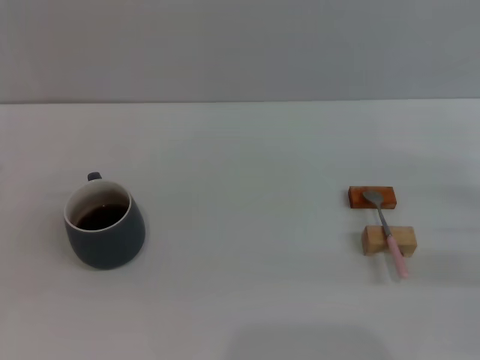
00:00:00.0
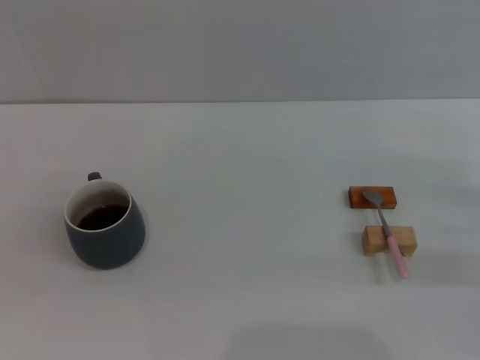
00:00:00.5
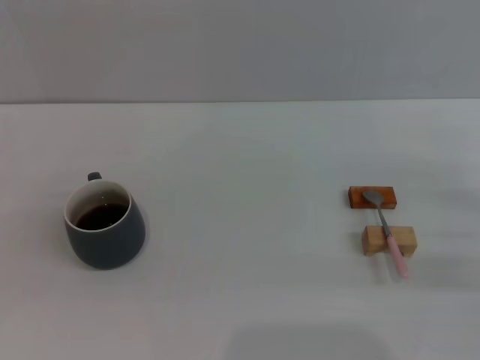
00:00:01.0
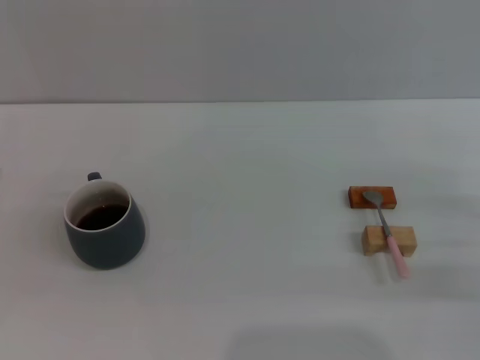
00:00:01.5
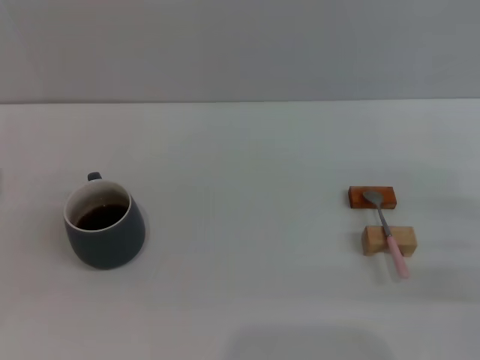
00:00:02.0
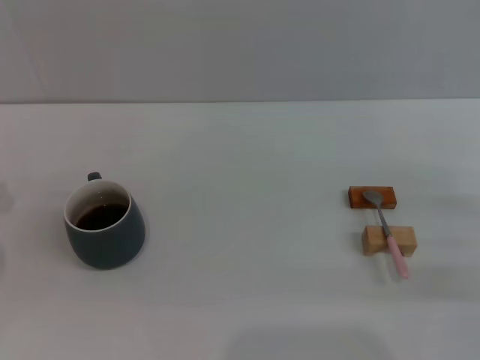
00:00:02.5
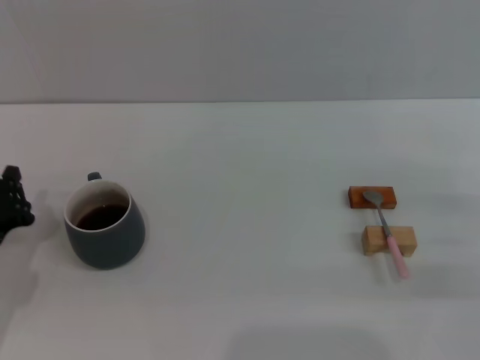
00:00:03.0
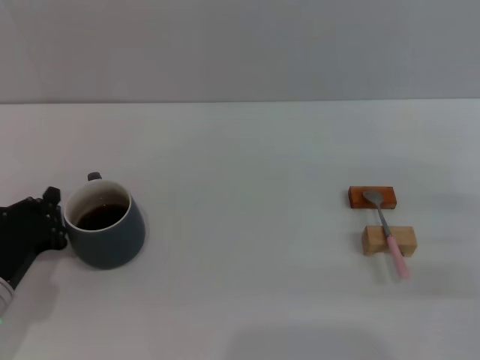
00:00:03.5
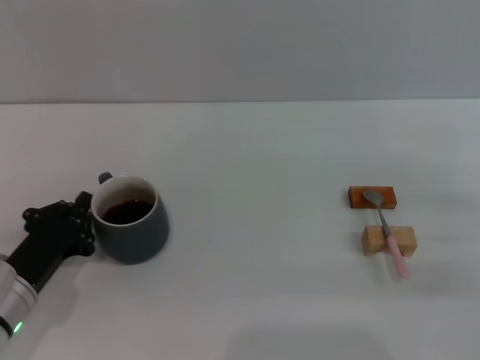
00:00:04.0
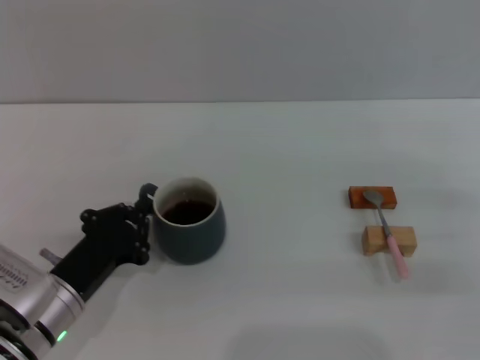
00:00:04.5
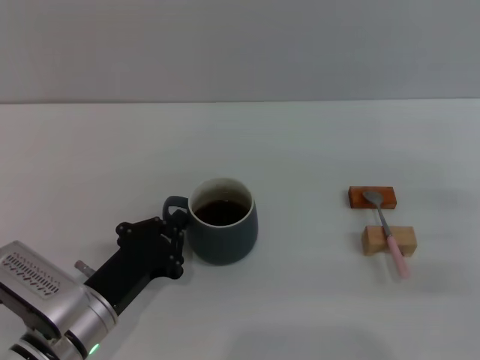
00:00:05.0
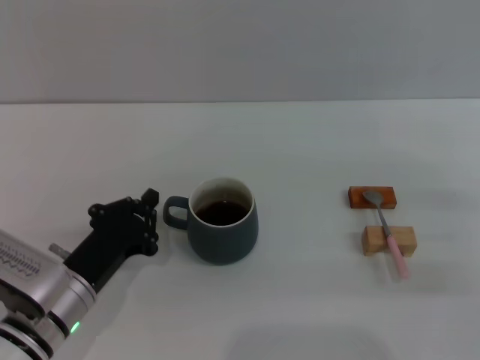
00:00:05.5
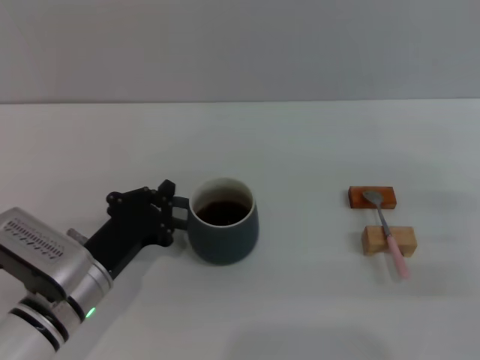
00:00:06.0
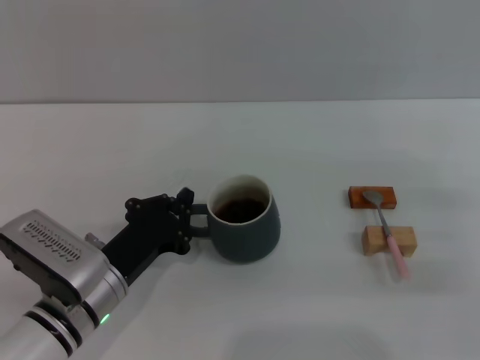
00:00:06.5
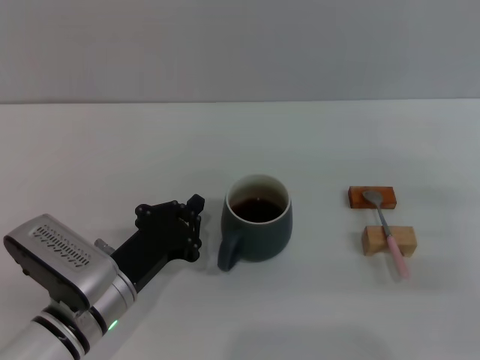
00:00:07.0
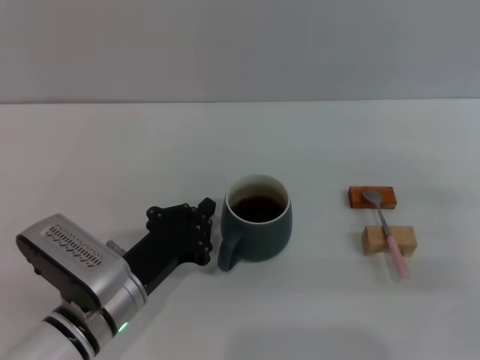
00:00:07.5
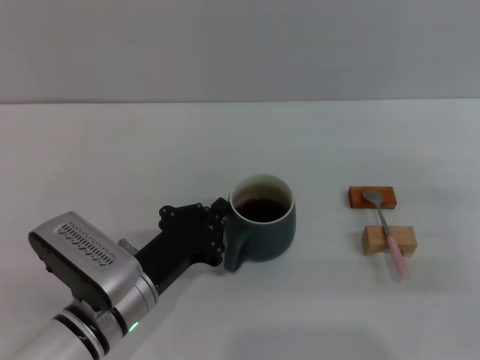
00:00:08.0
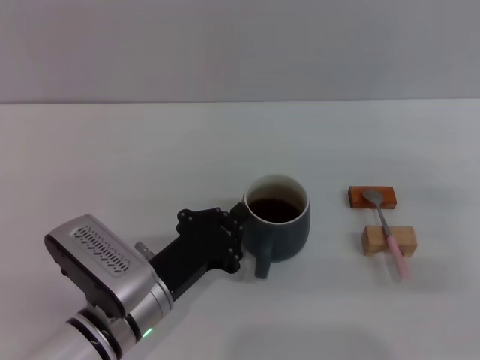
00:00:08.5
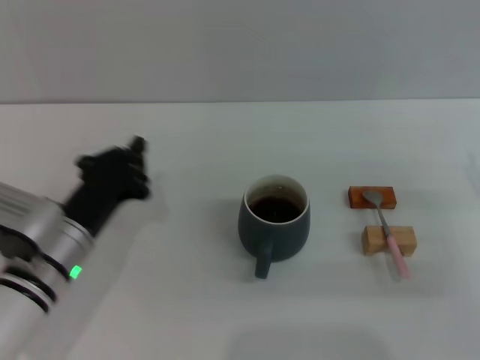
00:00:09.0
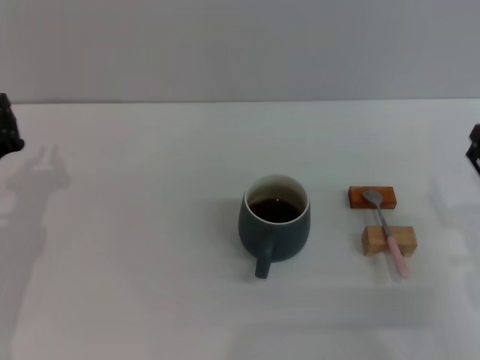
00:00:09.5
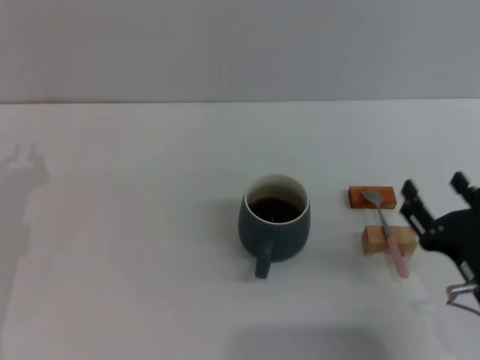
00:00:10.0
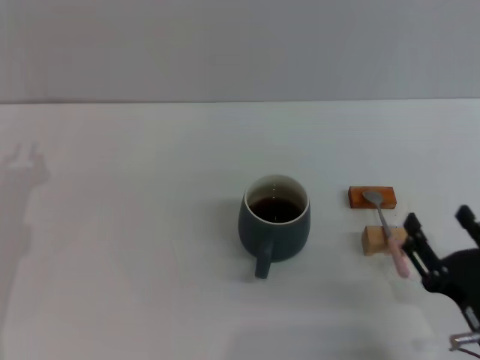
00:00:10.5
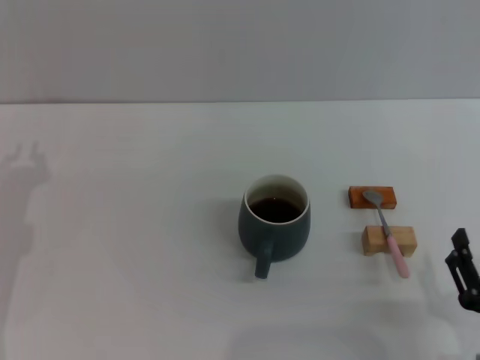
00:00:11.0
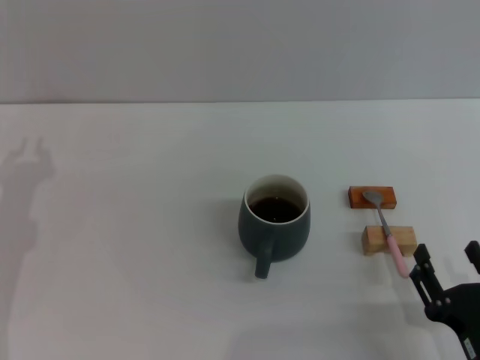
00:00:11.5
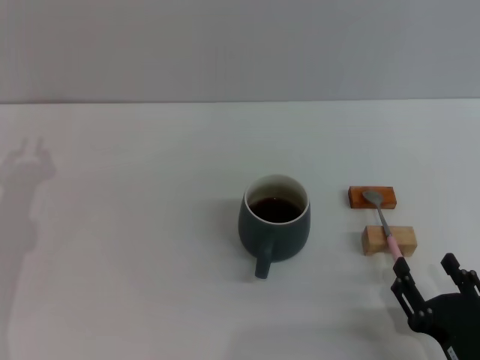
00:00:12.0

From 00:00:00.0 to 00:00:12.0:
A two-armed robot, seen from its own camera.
Task of the whole recording: Move the grey cup to the center, lift the pink spoon, stir it three times in the cup, and put the spoon into the cup.
Step, from 00:00:00.0 to 00:00:08.5: Move the cup with coffee to the center of view with the left gripper.
From 00:00:02.0 to 00:00:04.0: The left gripper travels to the right by approximately 10 cm, and closes its fingers.
From 00:00:04.0 to 00:00:06.0: The left gripper moves to the right, about 5 cm.
From 00:00:06.0 to 00:00:08.0: The grippers move only a little.
From 00:00:08.0 to 00:00:10.0: The left gripper is displaced to the left by approximately 15 cm. Meanwhile the right gripper heads to the left and backward, covering about 15 cm.
From 00:00:10.0 to 00:00:12.0: The right gripper is displaced backward and downward by approximately 10 cm.

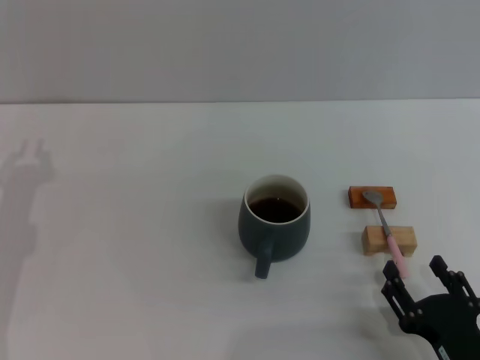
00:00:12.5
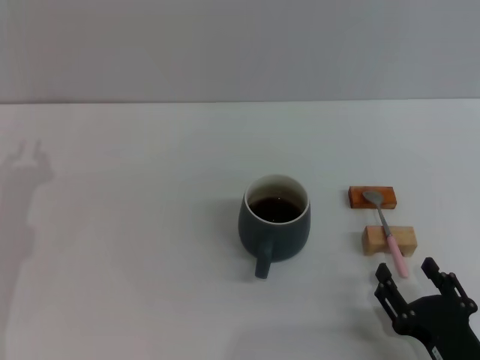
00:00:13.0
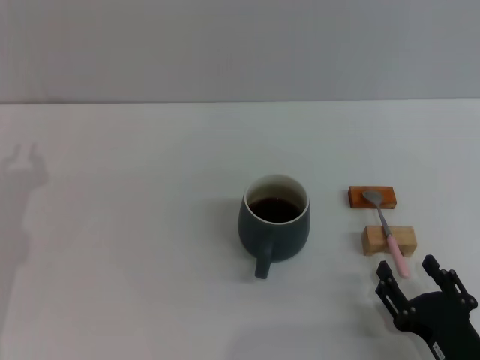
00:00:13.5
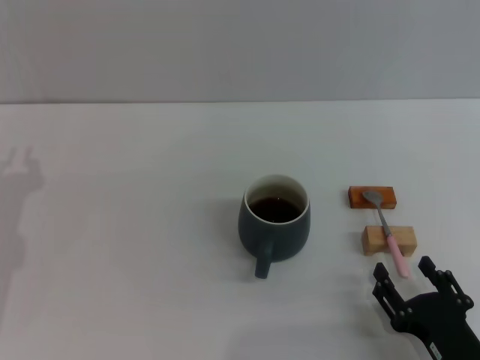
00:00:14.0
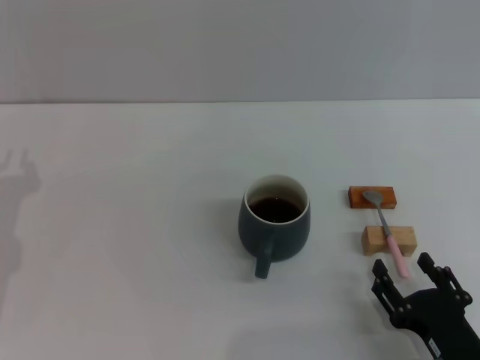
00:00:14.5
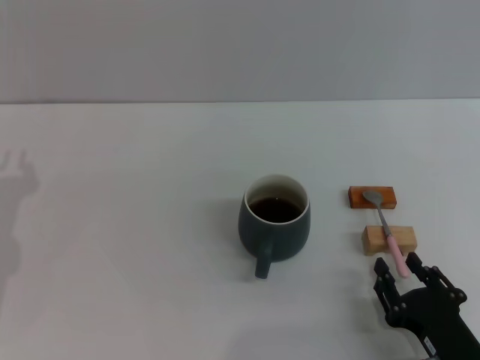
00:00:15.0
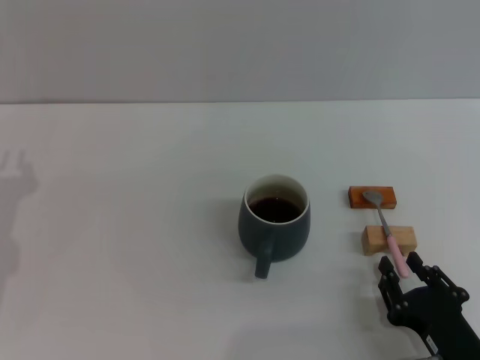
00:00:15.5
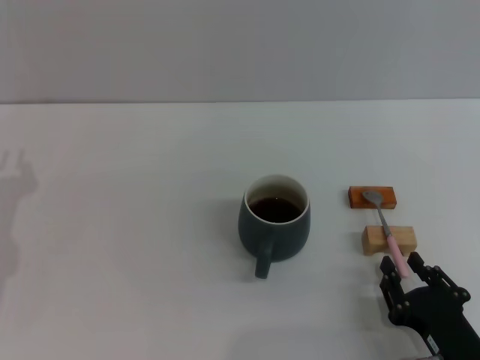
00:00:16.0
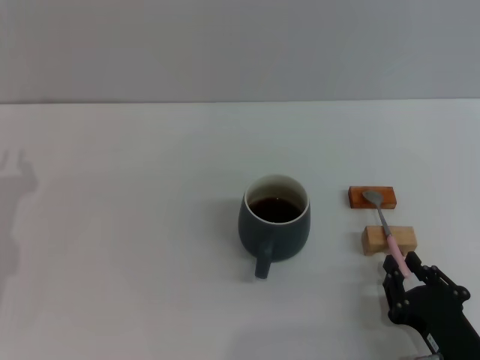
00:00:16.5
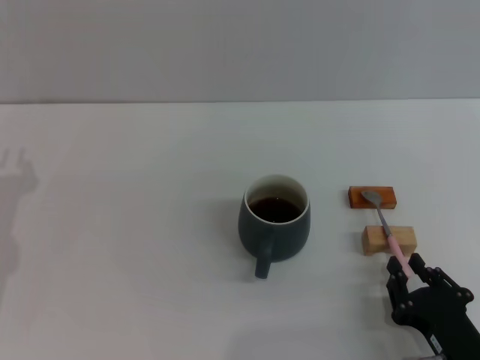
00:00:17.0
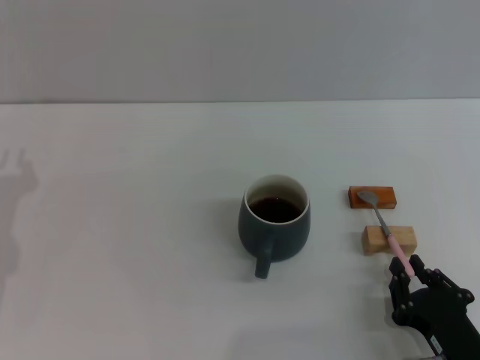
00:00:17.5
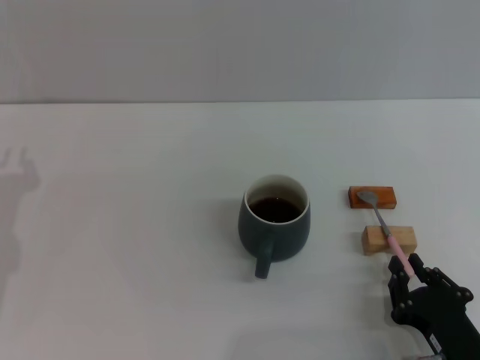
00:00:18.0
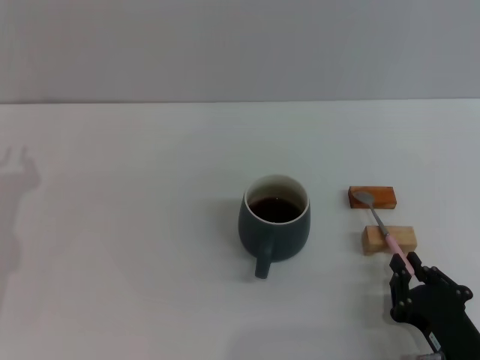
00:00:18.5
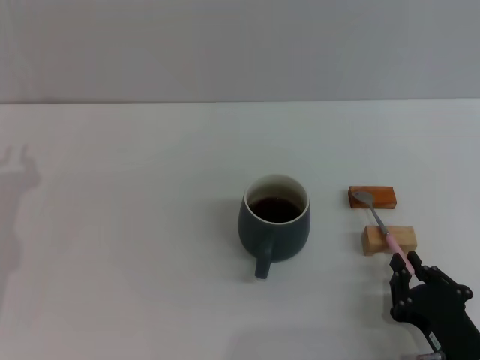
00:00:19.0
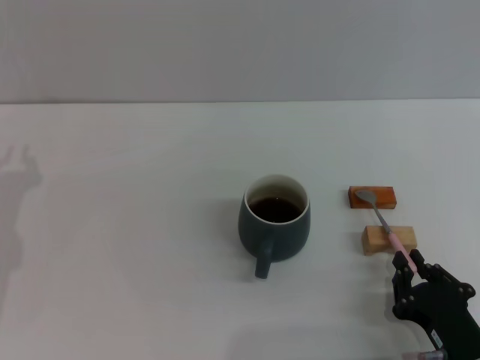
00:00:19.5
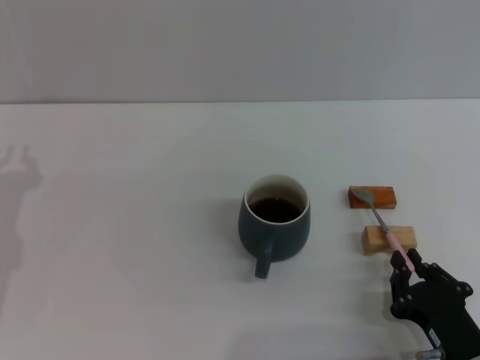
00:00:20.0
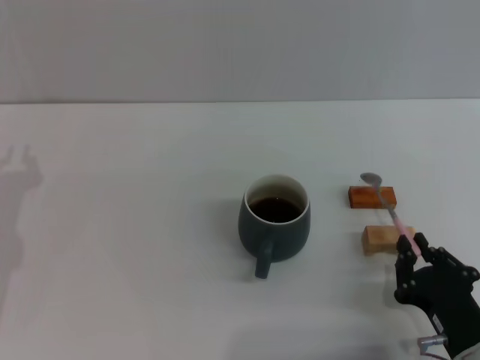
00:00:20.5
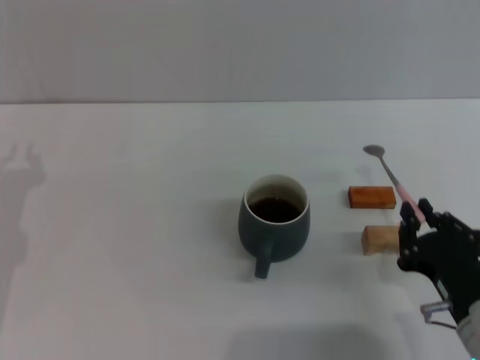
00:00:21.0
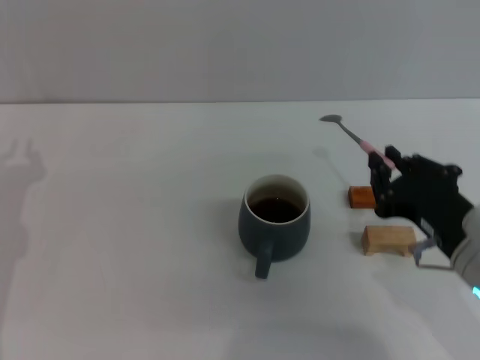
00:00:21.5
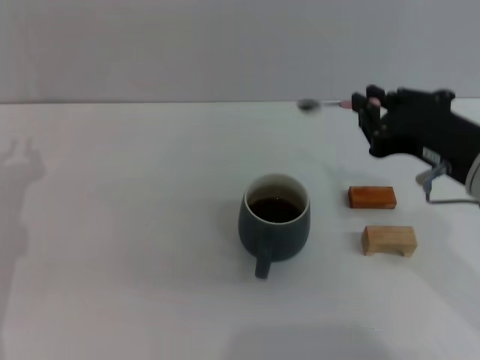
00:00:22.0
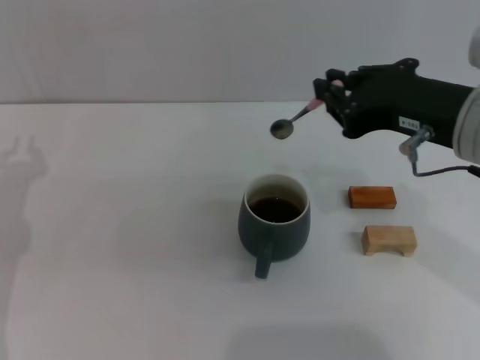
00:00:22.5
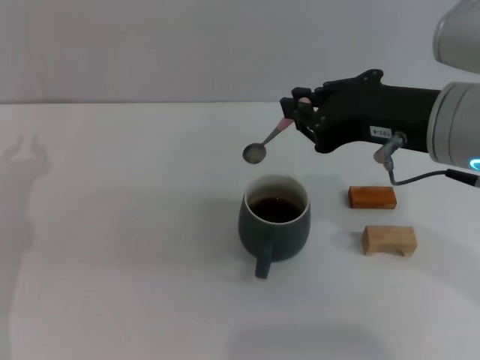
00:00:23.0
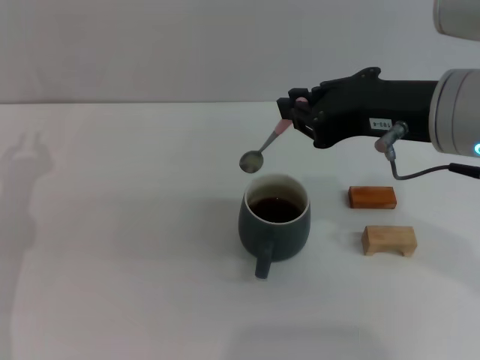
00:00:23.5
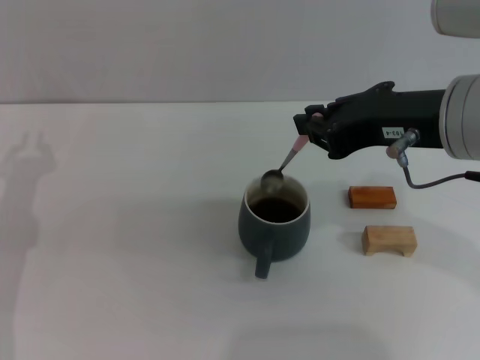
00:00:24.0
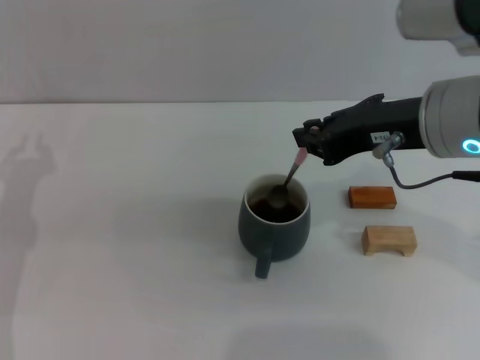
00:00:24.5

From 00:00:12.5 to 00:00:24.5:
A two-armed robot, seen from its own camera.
Task of the whole recording: Move the grey cup to the center, lift the pink spoon, stir it three times in the cup, and put the spoon into the cup.
Step, from 00:00:12.5 to 00:00:21.0: Pick up the spoon with the right gripper.
From 00:00:12.5 to 00:00:14.5: The grippers make only small movements.
From 00:00:14.5 to 00:00:16.5: The right gripper closes up.
From 00:00:16.5 to 00:00:18.5: The two grippers keep their place.
From 00:00:18.5 to 00:00:20.5: The grippers move only a little.
From 00:00:20.5 to 00:00:22.5: The right gripper is displaced upward and forward by approximately 25 cm.

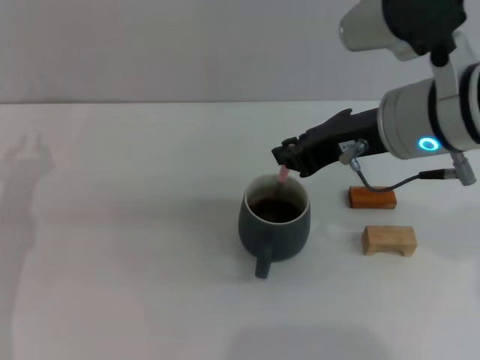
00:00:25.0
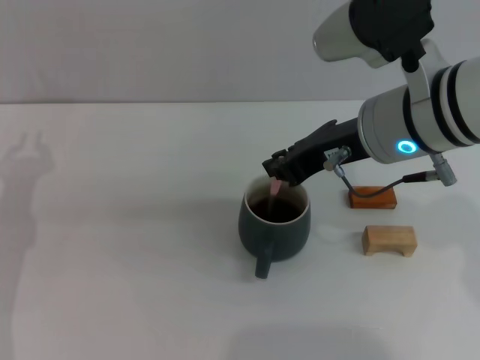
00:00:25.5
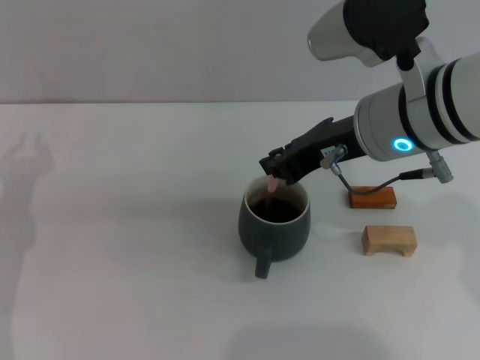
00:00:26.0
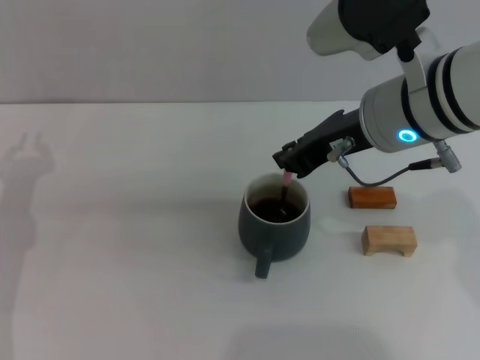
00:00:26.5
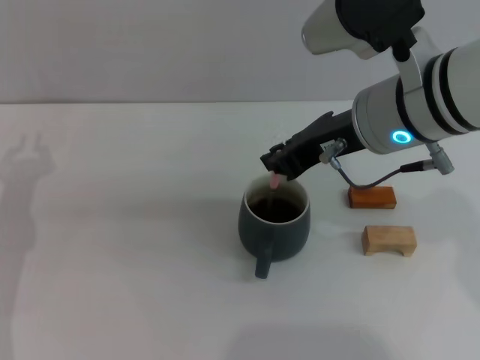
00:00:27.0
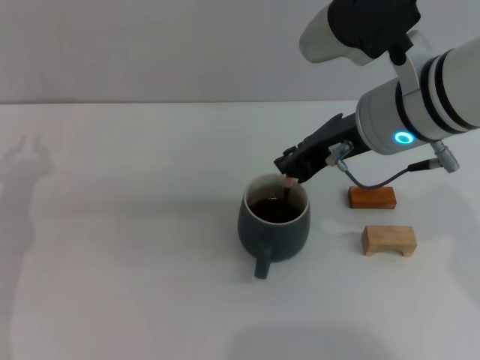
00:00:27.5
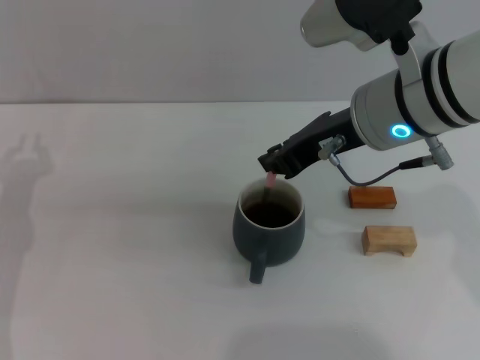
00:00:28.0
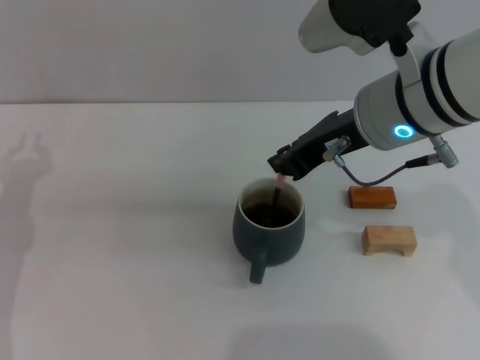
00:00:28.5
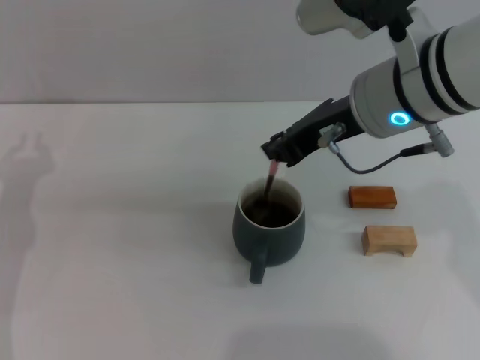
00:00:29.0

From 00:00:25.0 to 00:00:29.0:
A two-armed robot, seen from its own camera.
Task of the whole recording: Move the grey cup to the center, lift the pink spoon, stir it three times in the cup, and put the spoon into the cup.
From 00:00:25.0 to 00:00:29.0: There are only small adjustments of the grippers.
